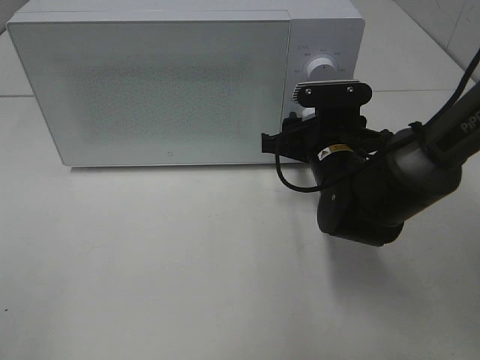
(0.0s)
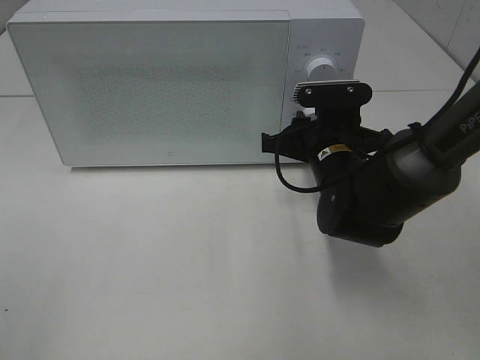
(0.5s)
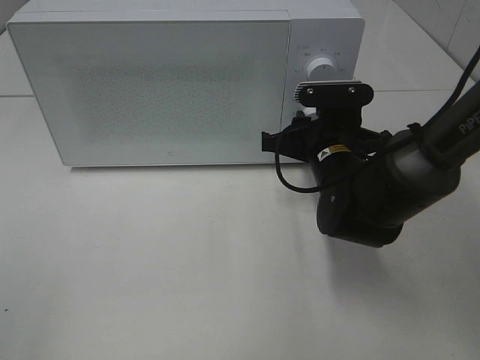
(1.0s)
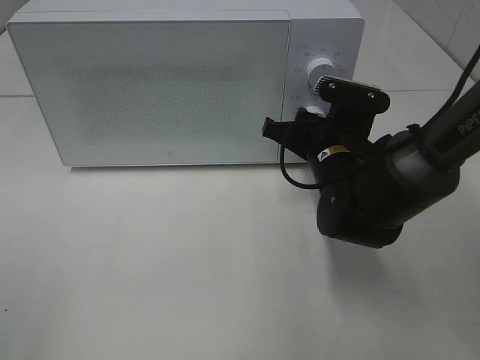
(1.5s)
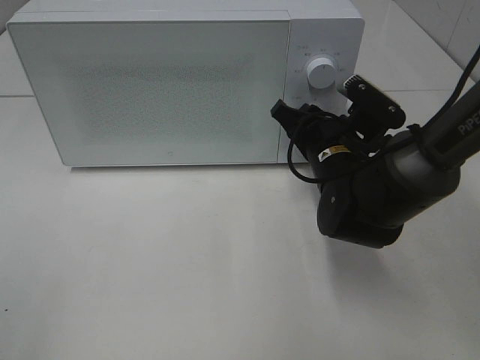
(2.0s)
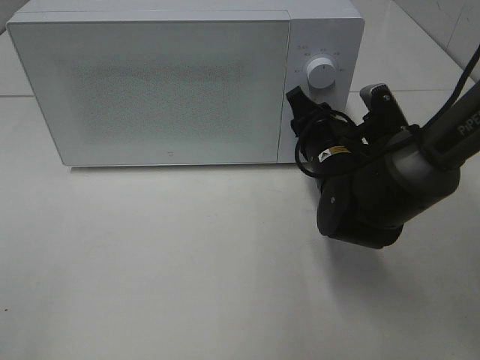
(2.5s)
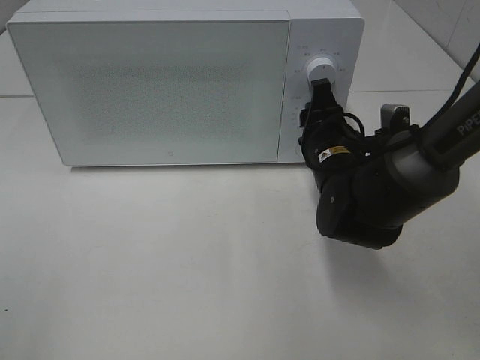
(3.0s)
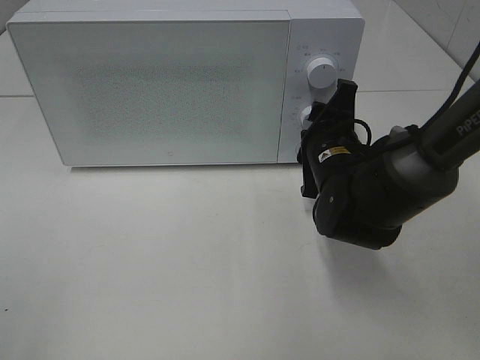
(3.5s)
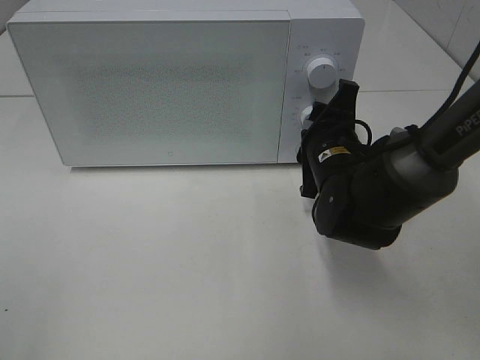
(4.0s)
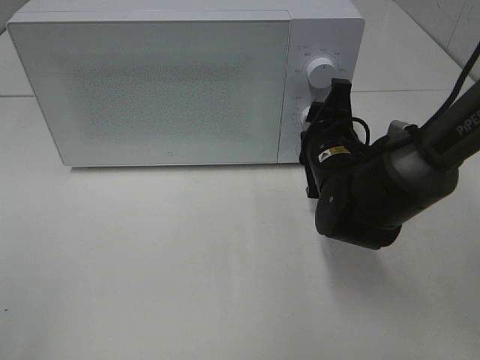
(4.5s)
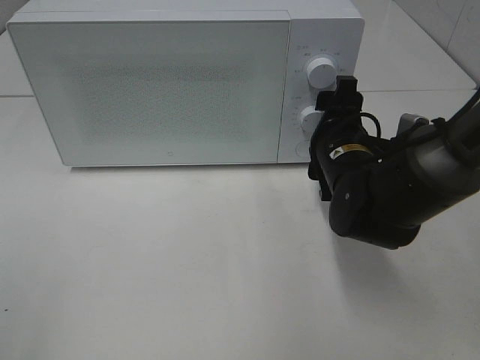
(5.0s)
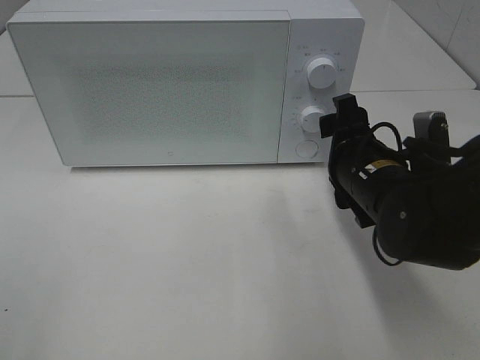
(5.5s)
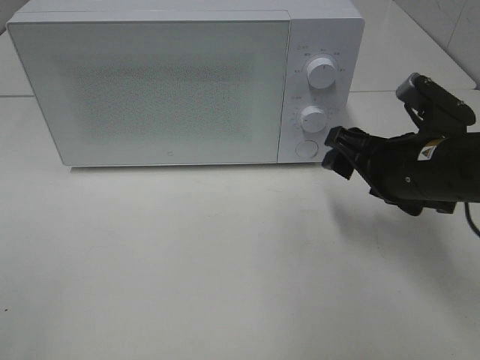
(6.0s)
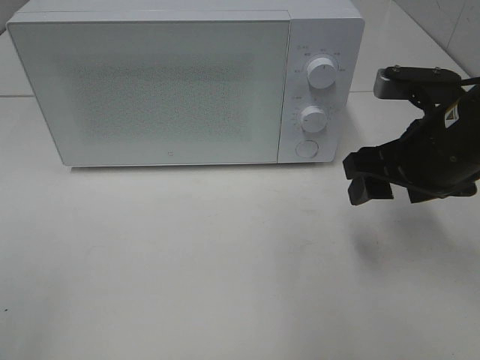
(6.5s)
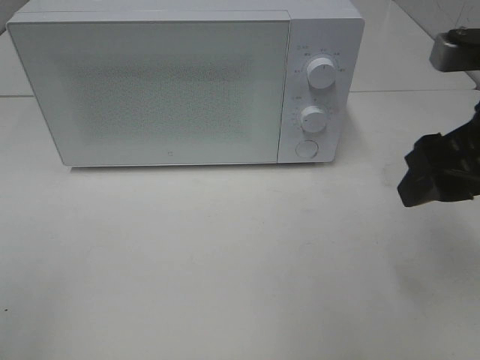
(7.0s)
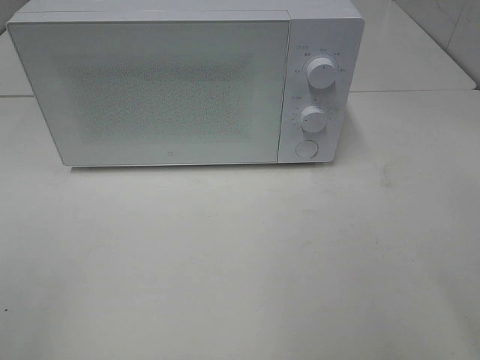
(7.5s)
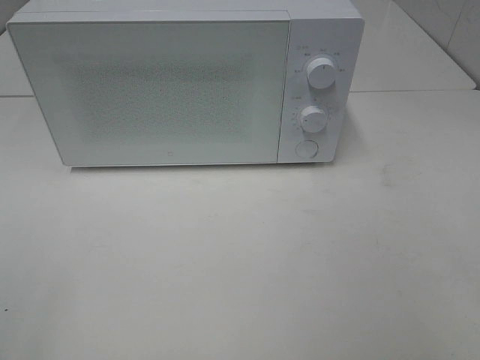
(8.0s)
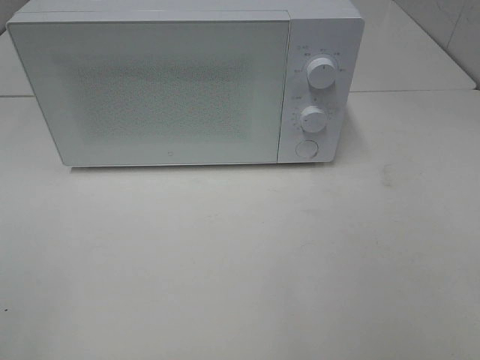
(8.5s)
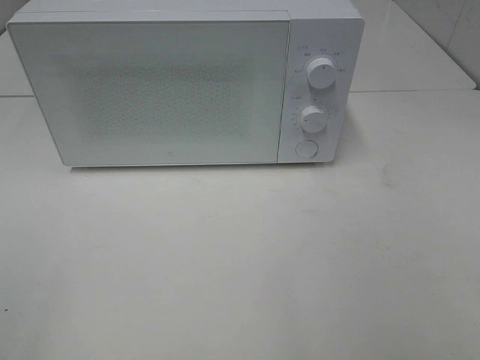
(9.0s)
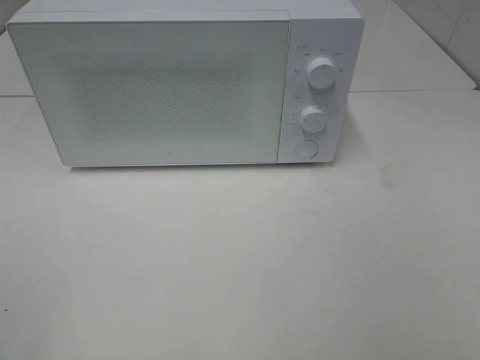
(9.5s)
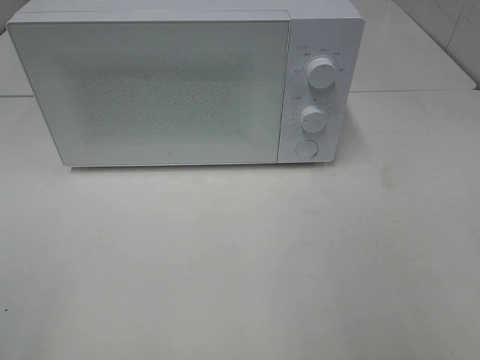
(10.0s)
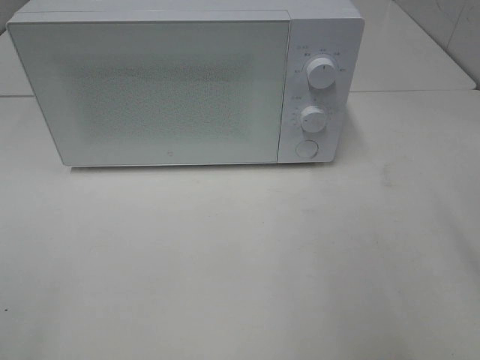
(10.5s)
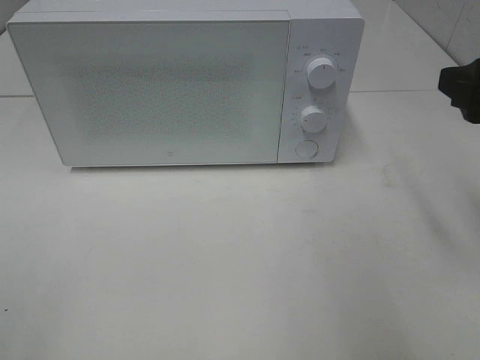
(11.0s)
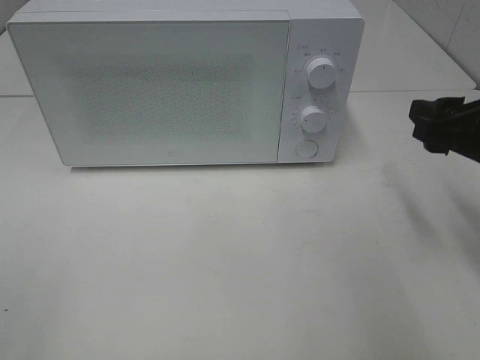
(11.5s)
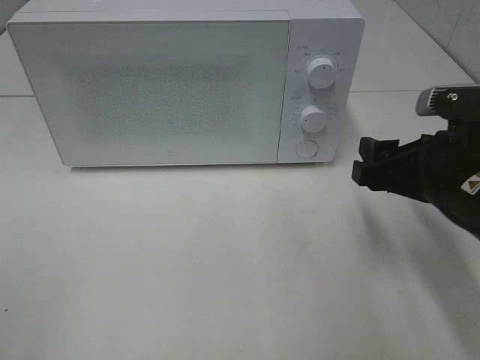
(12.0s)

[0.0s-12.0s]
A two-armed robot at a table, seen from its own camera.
Task of the whole recording: Heat the burger.
Step, 0.0s to 5.0s: Right hand: twist timer button.
4.0s to 6.0s: The right gripper travels to the right and backward by about 10 cm, and opens up.
6.0s to 8.0s: The right gripper heads backward, upward and to the right, covering some 30 cm.
10.0s to 12.0s: The right gripper travels forward, downward and to the left by roughly 20 cm.

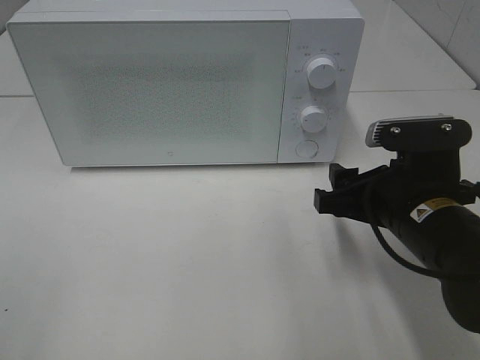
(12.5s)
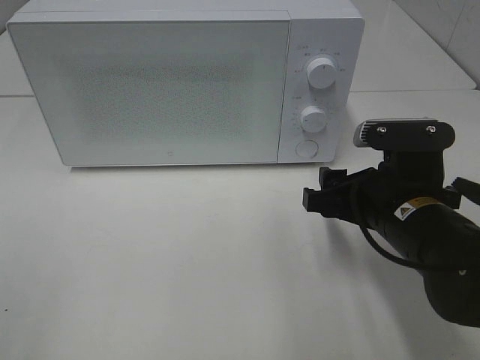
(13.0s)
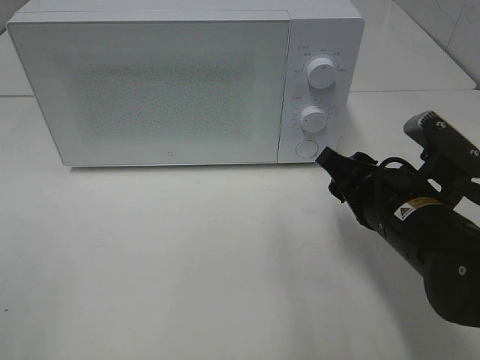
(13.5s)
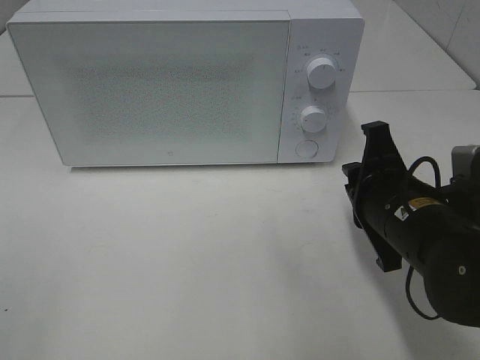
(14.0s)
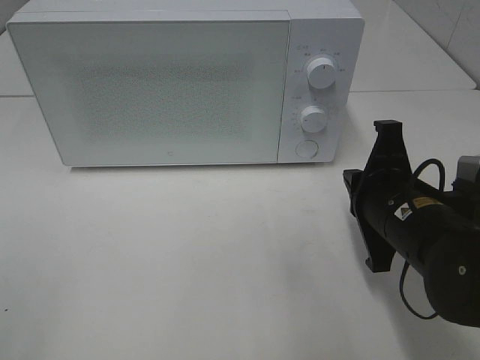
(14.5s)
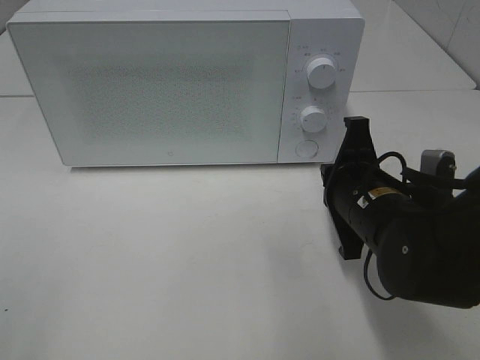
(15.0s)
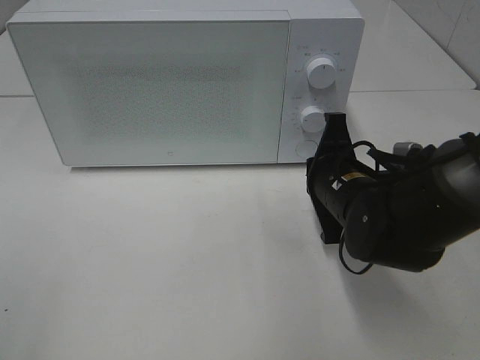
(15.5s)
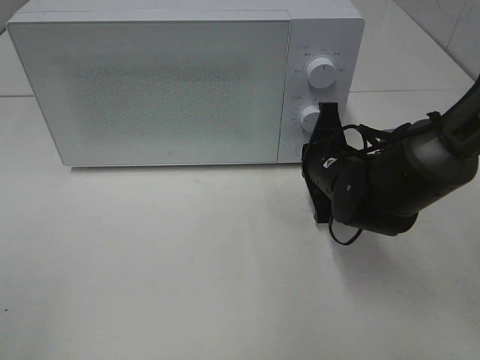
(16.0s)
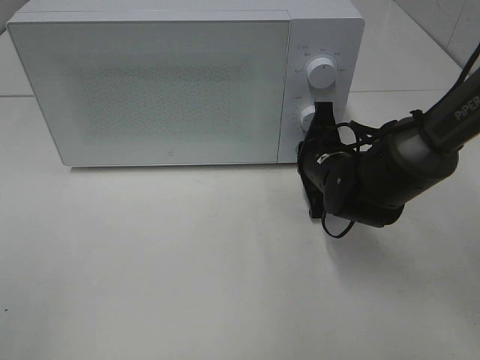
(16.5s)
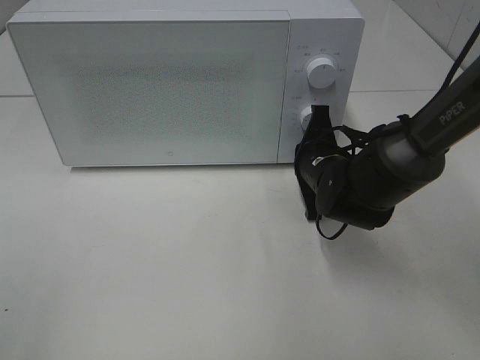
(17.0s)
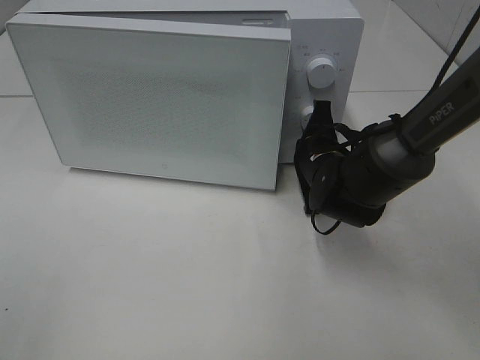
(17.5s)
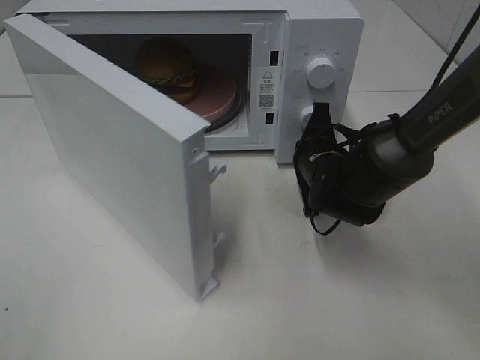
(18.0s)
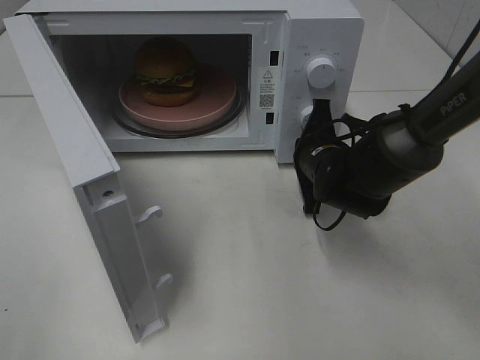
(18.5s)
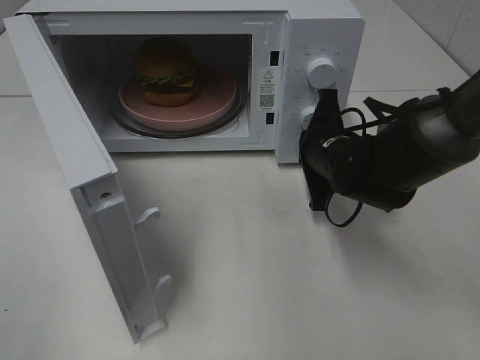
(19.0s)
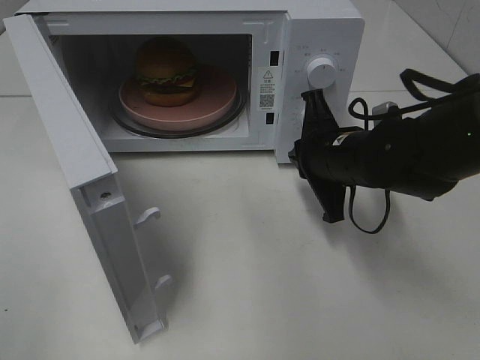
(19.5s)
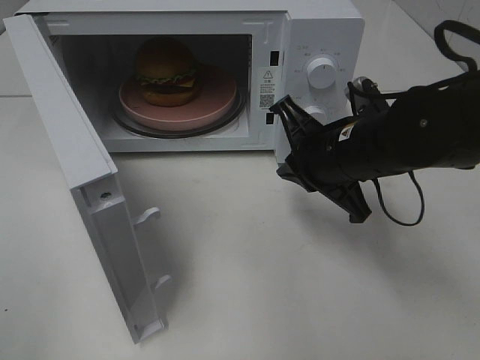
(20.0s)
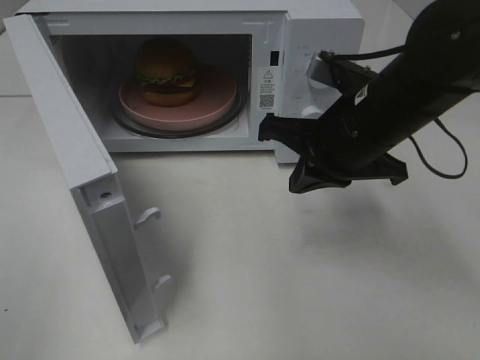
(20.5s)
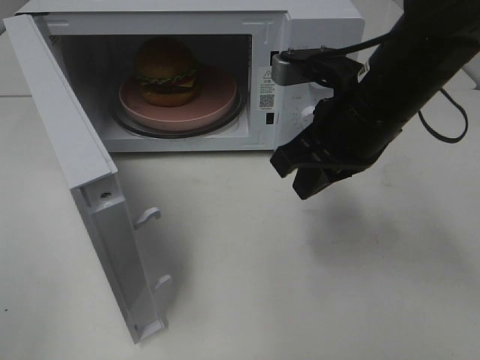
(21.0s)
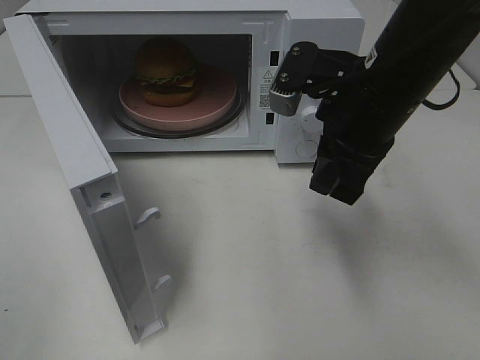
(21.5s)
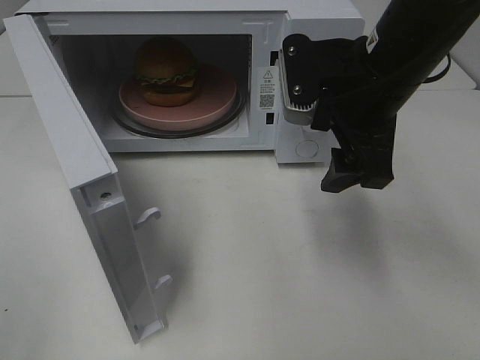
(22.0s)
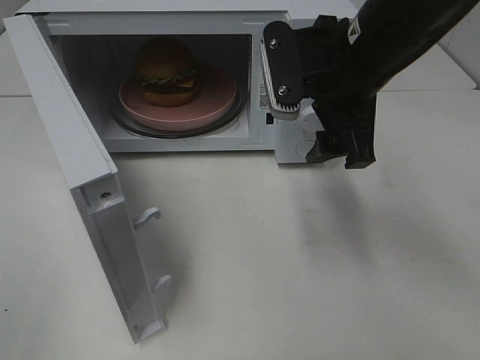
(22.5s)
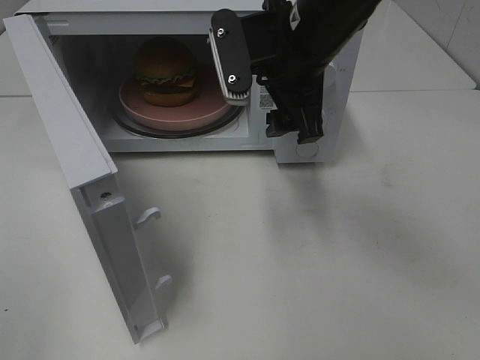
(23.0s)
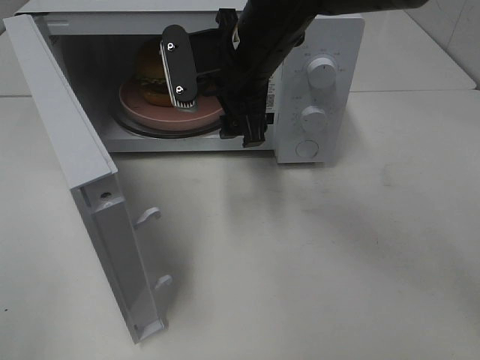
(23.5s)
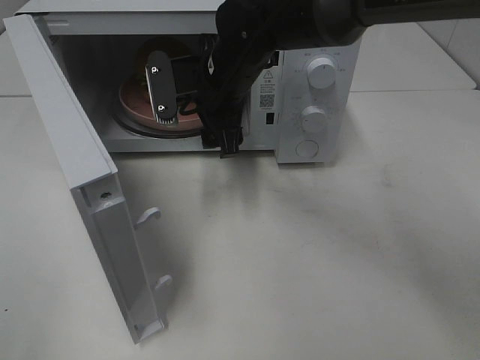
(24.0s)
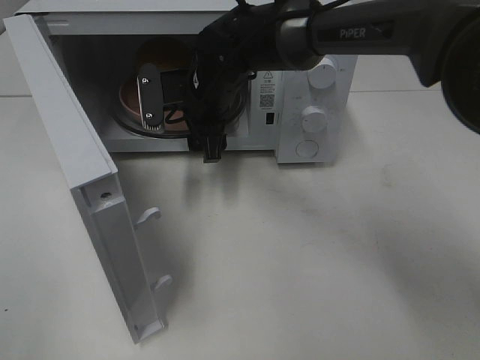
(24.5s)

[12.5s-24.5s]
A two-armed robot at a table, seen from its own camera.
Task of the whole recording: Heat the burger.
Step, 12.5s to 19.0s: Right hand: press the switch.
12.5s to 14.5s: The right gripper closes up.
14.5s to 16.5s: The right gripper heads forward and downward, covering some 15 cm.
18.5s to 20.5s: The right gripper shifts some 15 cm upward and backward.
20.5s to 22.5s: The right gripper goes about 5 cm upward, and opens.
22.5s to 24.5s: The right gripper travels to the left, forward and downward by some 20 cm.

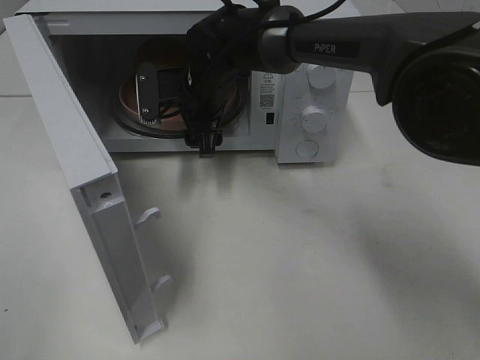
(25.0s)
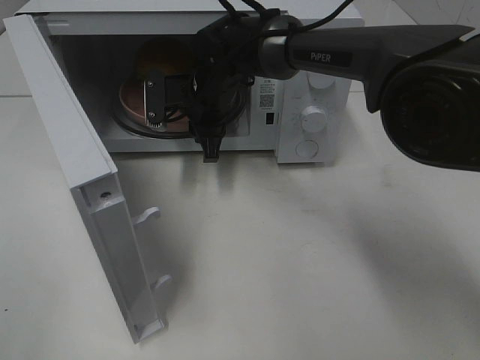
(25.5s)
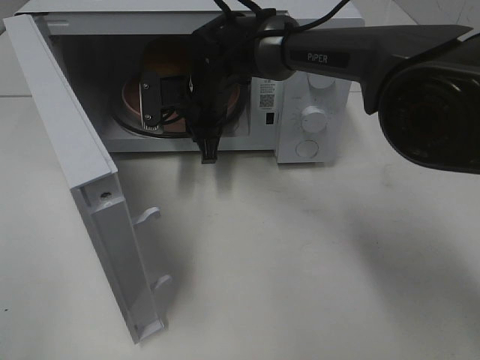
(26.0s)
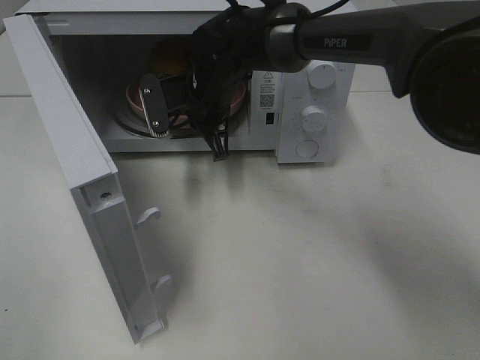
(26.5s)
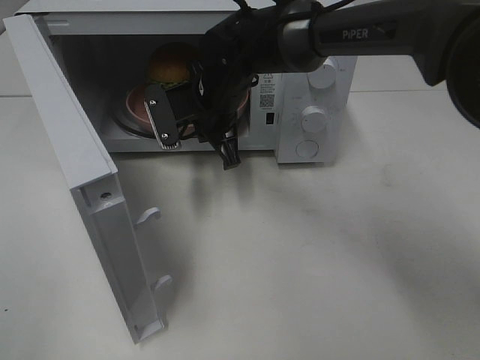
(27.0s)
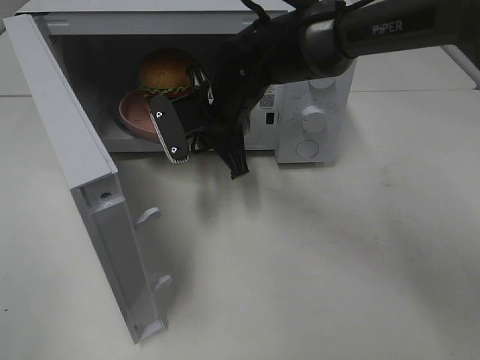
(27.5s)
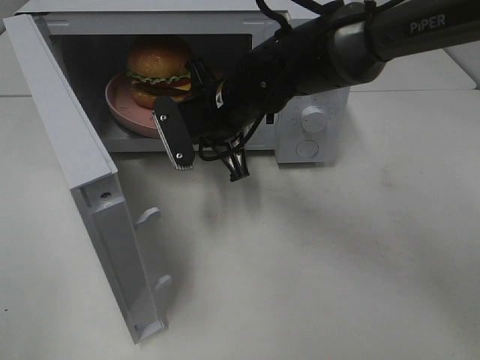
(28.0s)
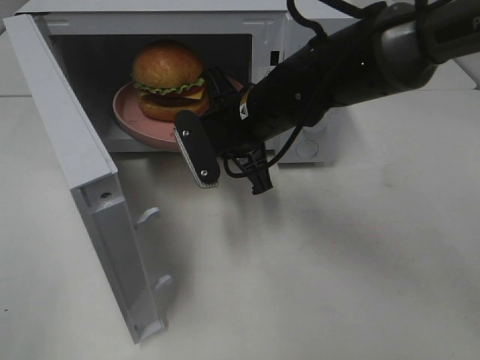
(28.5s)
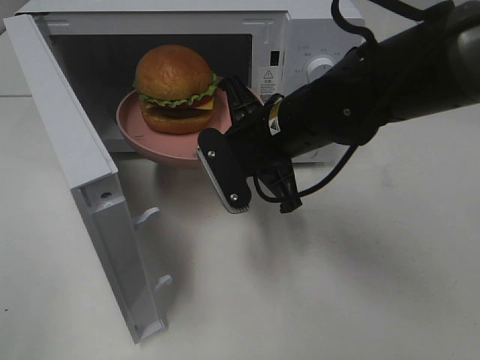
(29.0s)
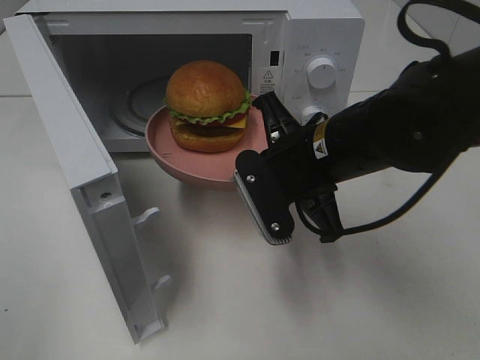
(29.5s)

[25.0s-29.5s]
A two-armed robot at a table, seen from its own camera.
Task of the whole recording: Heat the burger.
25.0s to 27.0s: The right gripper closes its fingers.
27.0s to 29.5s: The right gripper shifts about 20 cm backward and to the right.
